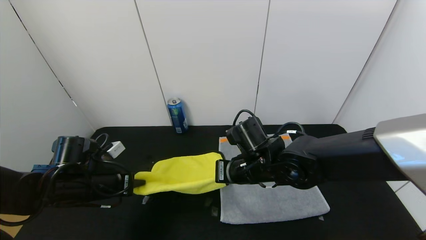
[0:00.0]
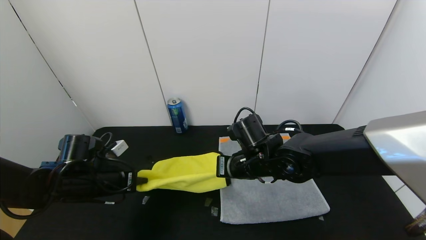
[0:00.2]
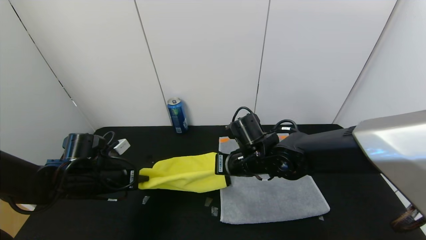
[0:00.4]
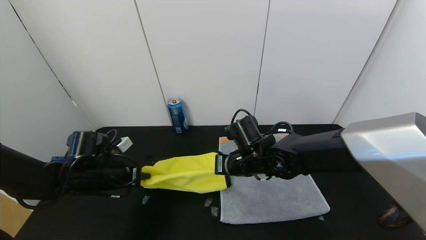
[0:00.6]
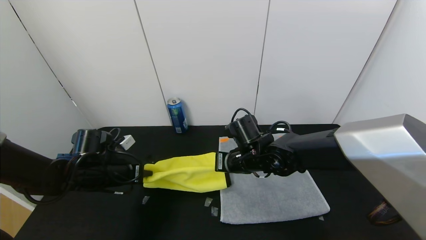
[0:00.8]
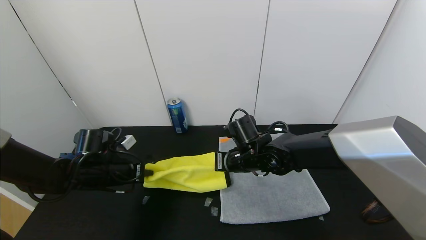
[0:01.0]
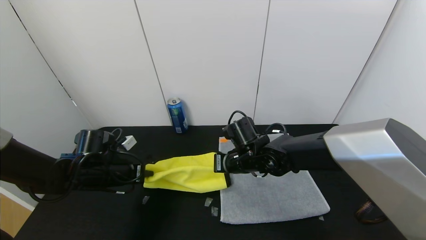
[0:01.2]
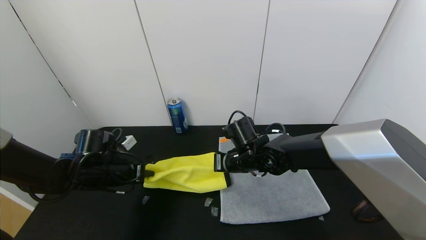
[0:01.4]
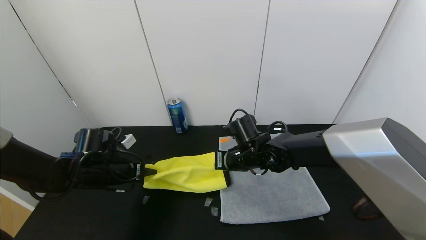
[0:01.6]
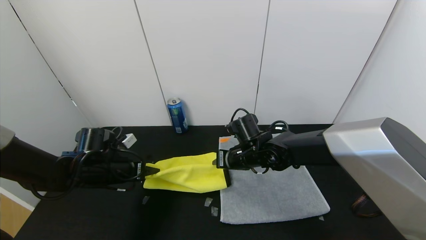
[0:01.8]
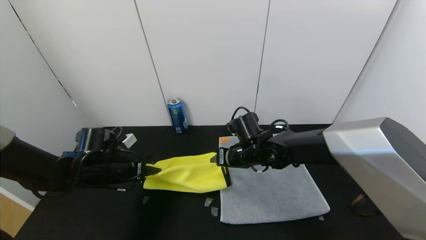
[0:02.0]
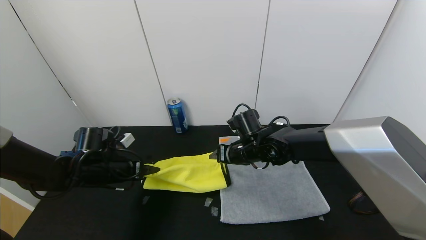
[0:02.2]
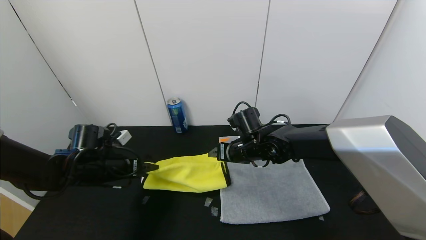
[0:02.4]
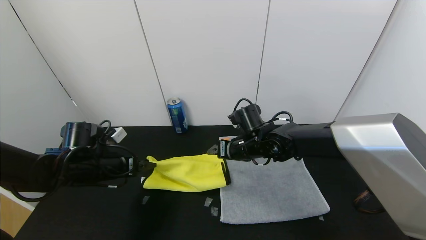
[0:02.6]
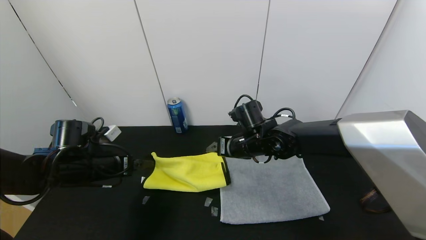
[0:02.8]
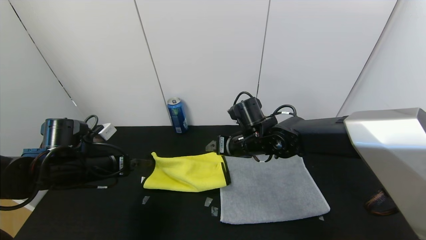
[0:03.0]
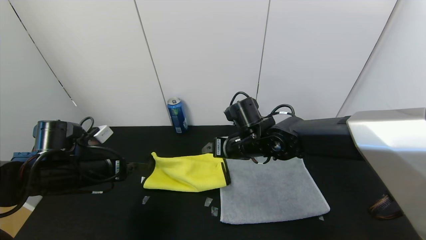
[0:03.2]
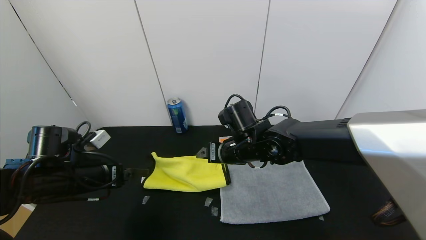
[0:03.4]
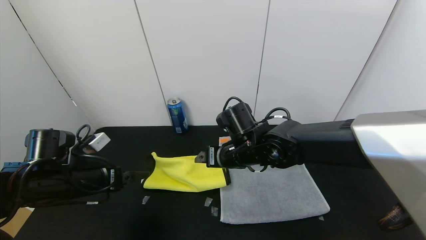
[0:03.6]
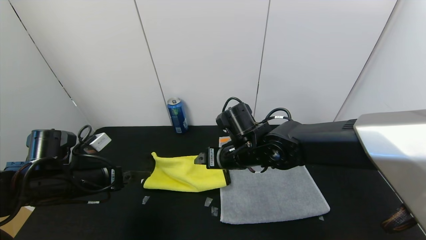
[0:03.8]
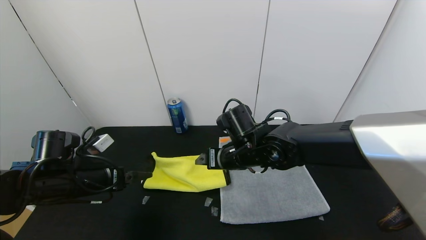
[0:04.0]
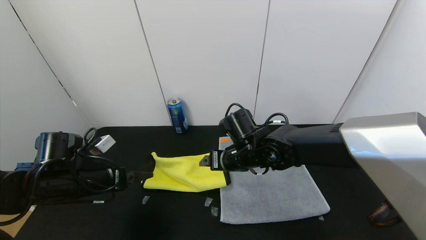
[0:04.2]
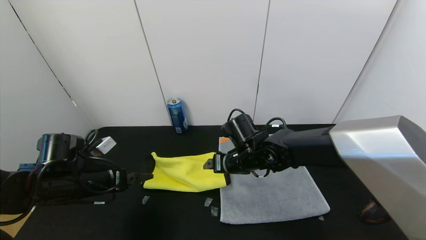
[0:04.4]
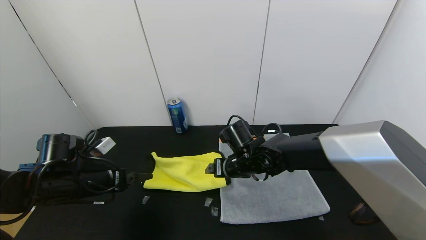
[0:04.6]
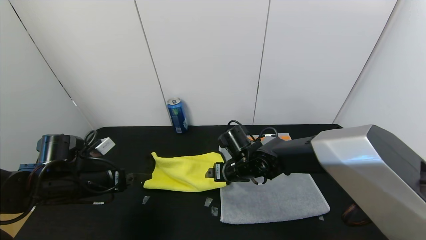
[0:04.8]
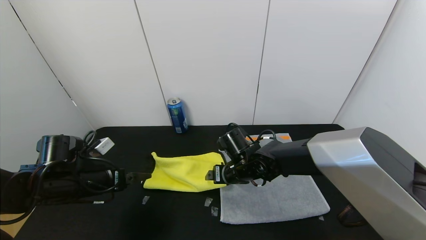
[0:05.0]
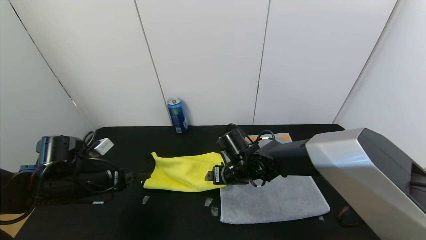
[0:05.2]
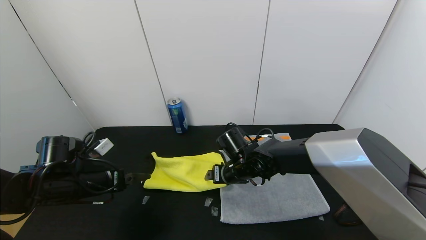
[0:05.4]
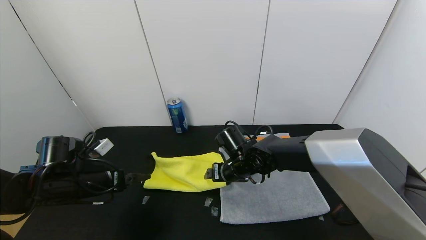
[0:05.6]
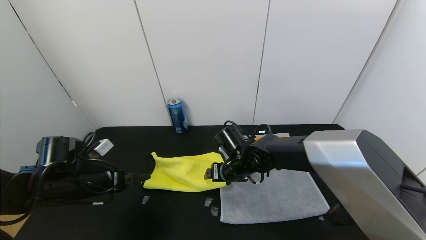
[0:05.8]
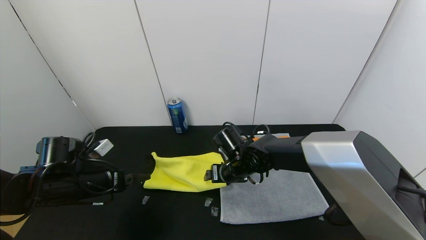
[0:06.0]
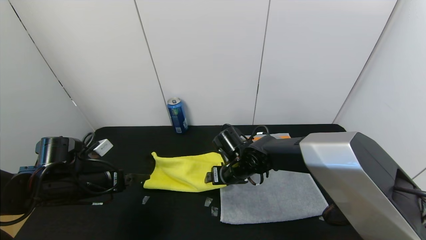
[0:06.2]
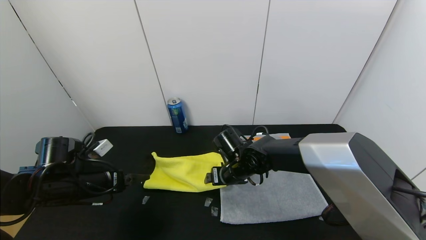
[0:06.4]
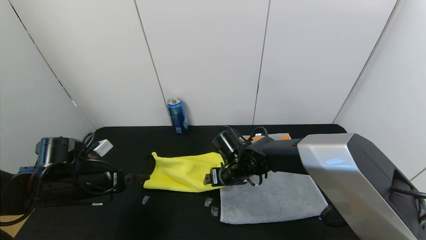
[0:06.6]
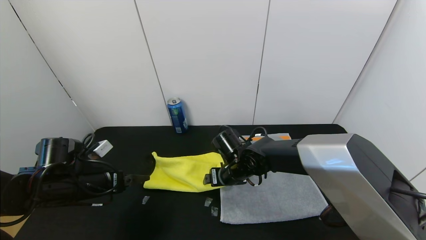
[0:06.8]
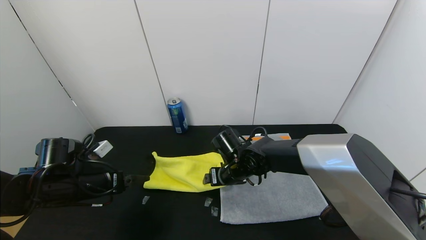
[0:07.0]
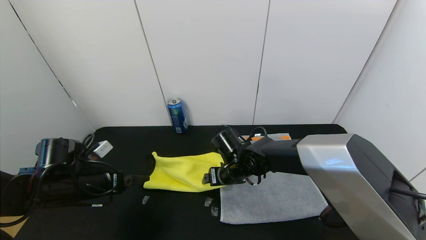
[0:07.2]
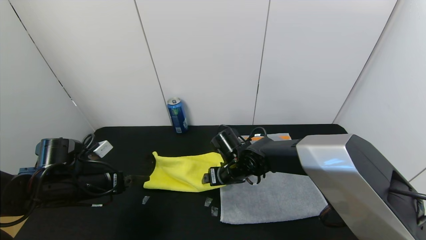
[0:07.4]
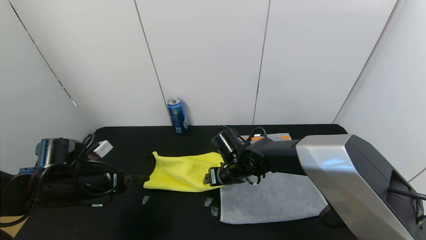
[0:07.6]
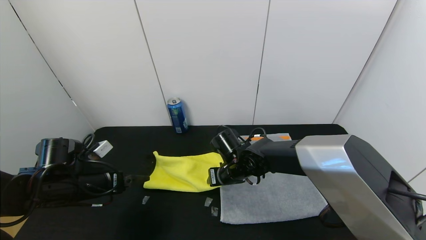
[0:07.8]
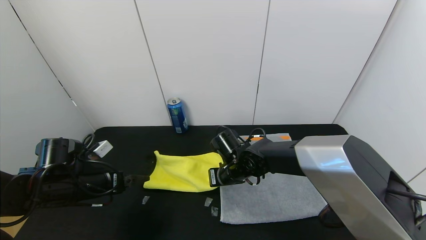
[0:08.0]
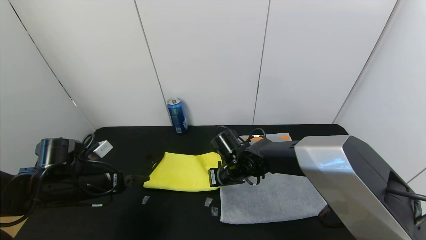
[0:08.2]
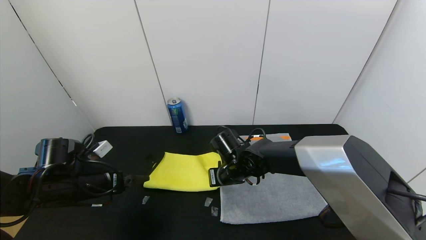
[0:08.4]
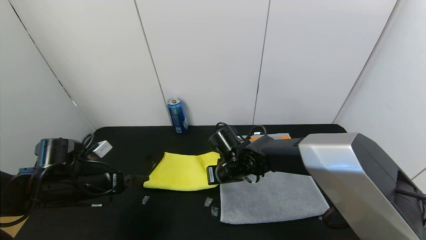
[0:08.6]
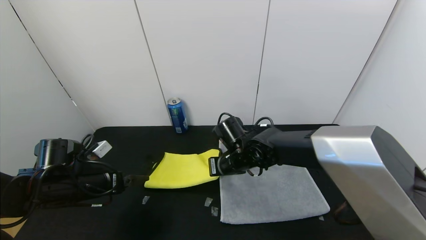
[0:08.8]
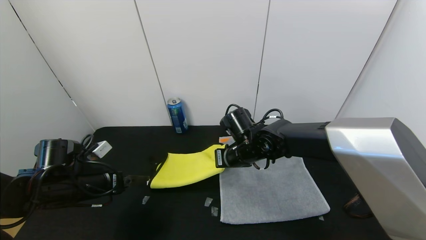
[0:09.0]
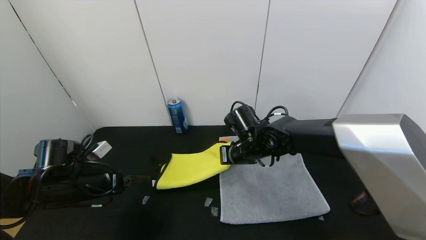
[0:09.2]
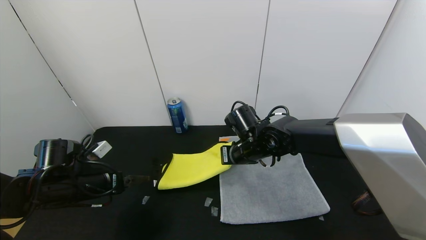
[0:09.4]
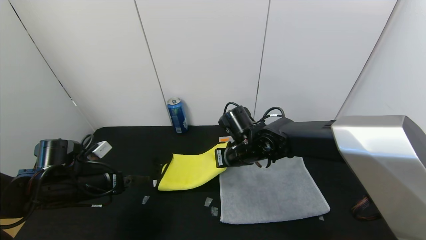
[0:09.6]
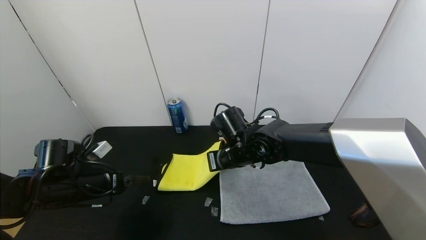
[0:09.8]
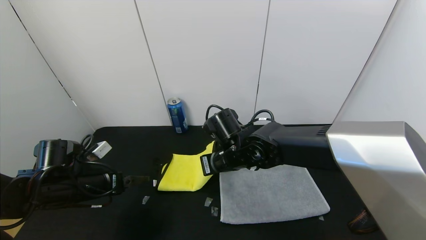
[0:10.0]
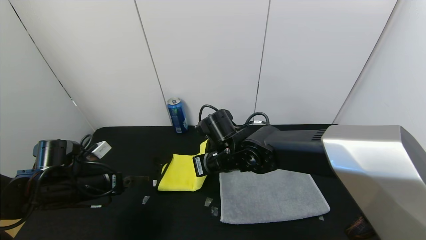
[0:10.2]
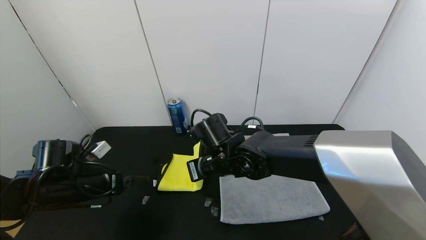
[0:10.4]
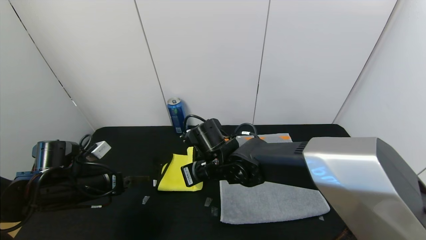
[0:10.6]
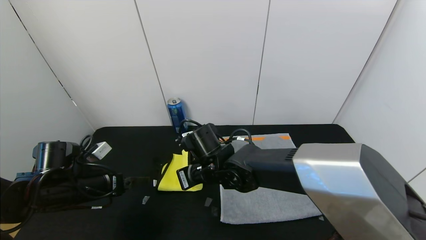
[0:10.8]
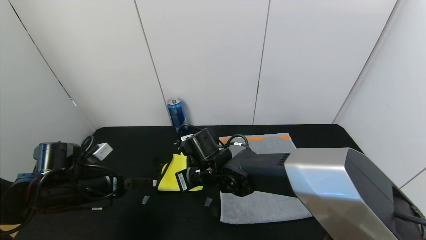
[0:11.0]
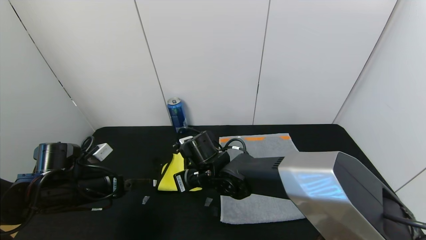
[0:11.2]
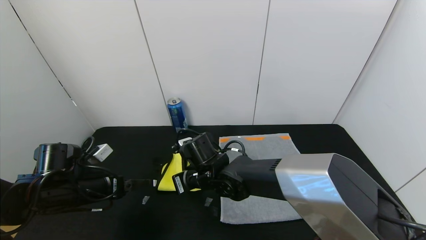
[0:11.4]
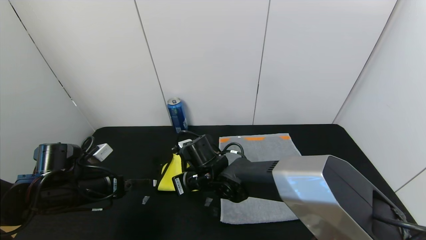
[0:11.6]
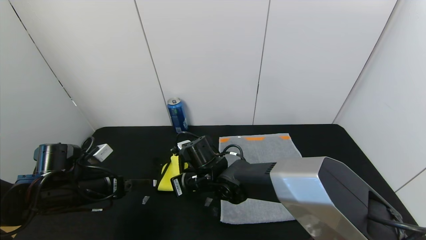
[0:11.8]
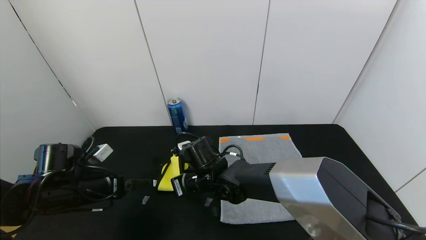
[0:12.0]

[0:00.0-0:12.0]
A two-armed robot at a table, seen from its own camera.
Task of the whole recording: Use the gripper to fold the yellow towel and grey towel in half twice,then put the yellow towel on the grey towel.
Step, 0:00.0 to 0:02.8: Fold the yellow towel upwards with the left gripper.
Step, 0:00.0 to 0:02.8: Fold the yellow towel upwards with the right gripper.
0:00.0 to 0:01.6: The left gripper opens up; the right gripper is displaced forward by approximately 5 cm.
0:01.6 to 0:03.0: The right gripper opens. The left gripper ends up approximately 5 cm from where it was, and opens up.
0:03.0 to 0:04.4: The grippers move only a little.
0:04.4 to 0:06.0: The grippers stay close to where they were, moving slightly.
0:06.0 to 0:07.6: The two grippers keep their place.
0:07.6 to 0:09.0: The right gripper goes roughly 5 cm upward, and closes.
0:09.0 to 0:10.4: The right gripper heads to the left, covering some 5 cm.
0:10.4 to 0:12.0: The right gripper heads downward, covering some 5 cm.

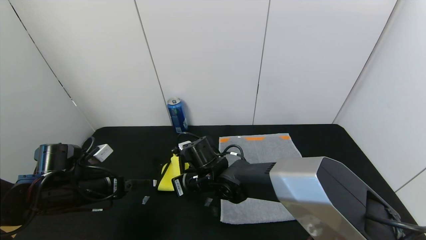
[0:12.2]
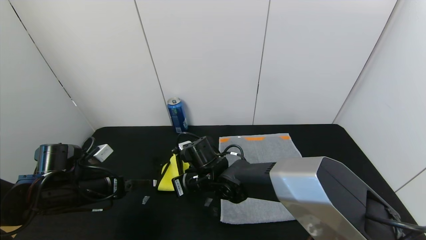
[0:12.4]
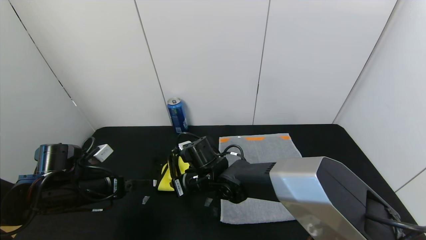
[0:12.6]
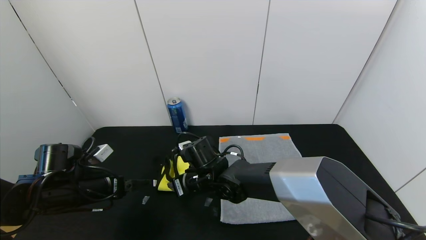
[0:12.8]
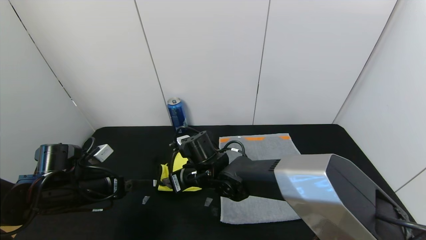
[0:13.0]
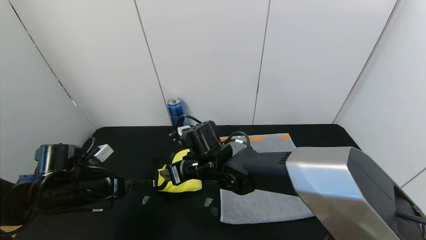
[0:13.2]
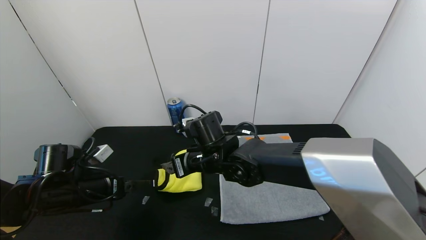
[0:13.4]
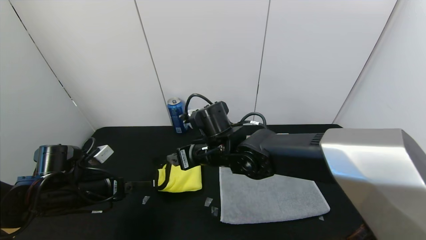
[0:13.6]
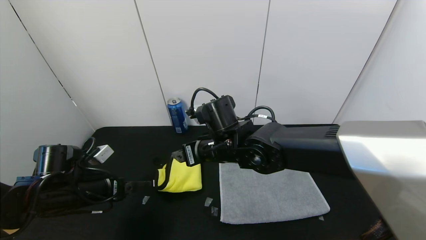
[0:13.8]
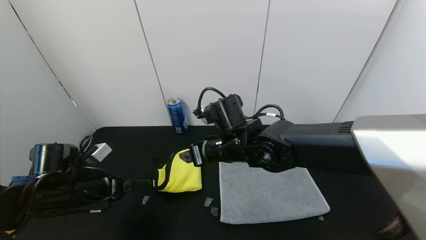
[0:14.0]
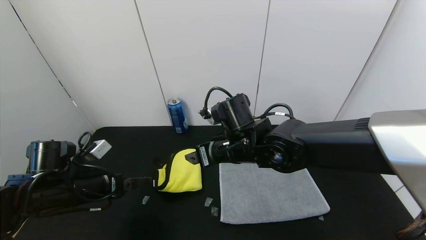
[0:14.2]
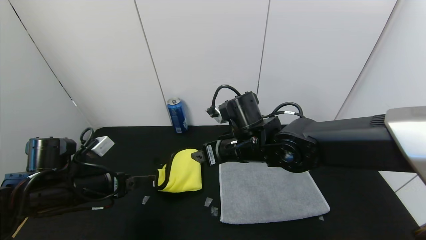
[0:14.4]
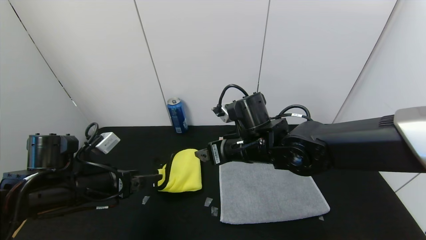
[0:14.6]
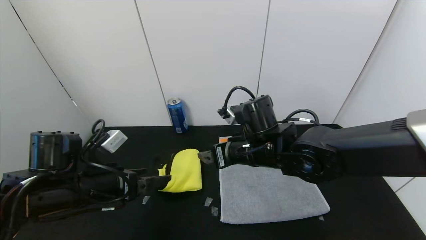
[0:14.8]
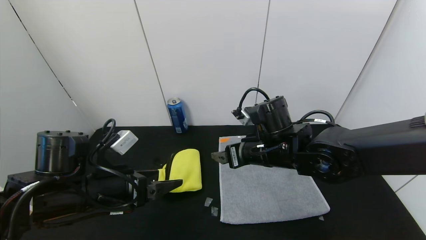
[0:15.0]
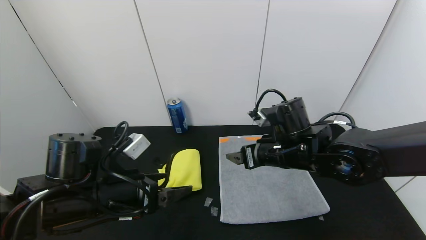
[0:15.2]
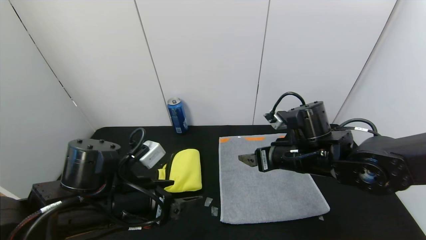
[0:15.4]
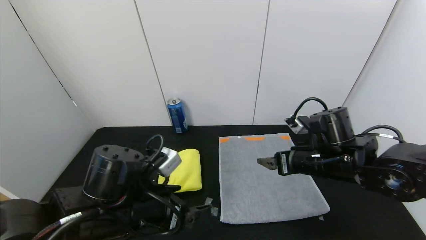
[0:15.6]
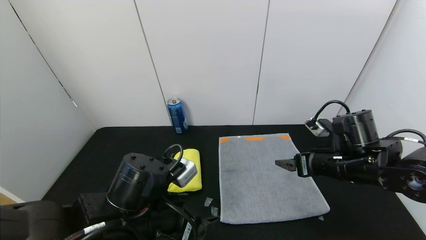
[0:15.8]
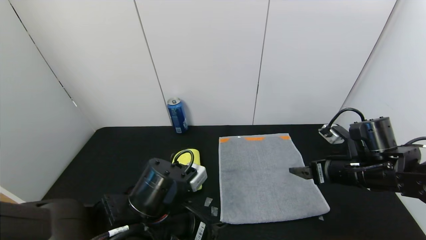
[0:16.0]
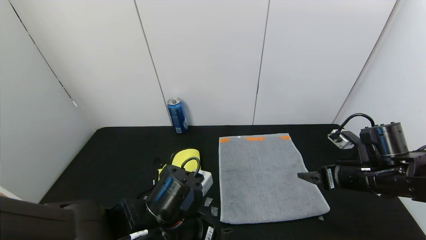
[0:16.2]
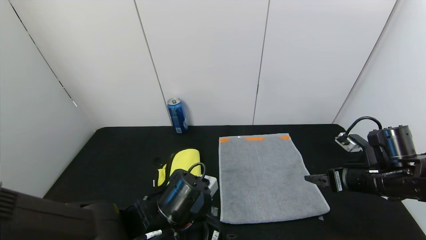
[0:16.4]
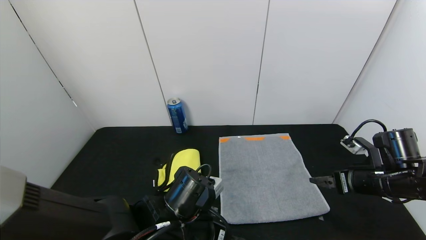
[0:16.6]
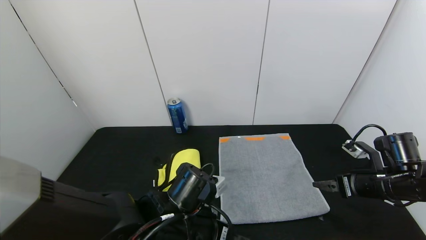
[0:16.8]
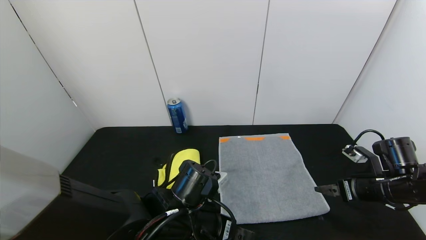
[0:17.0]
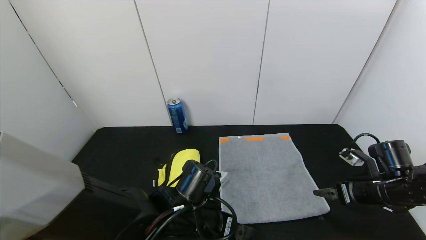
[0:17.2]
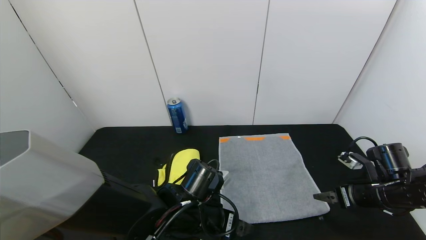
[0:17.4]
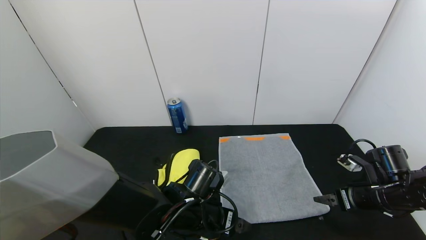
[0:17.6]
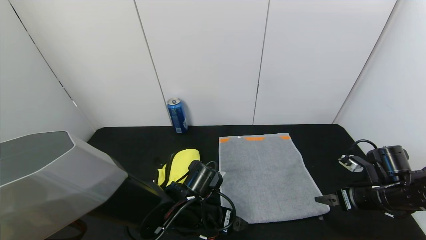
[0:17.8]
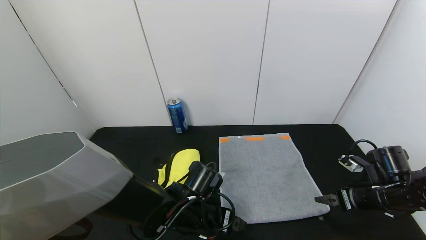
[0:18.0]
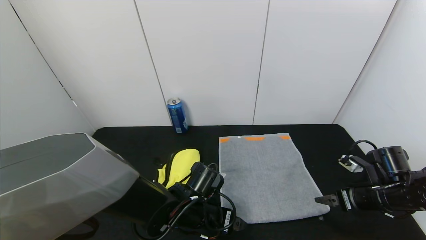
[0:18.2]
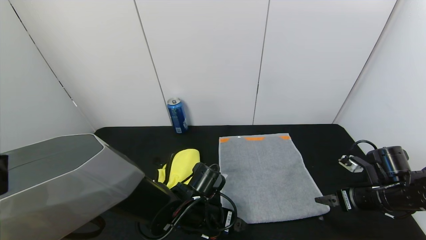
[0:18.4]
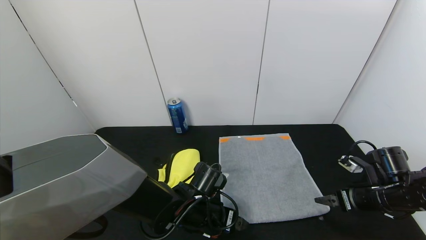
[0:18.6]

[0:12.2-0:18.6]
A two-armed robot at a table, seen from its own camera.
Task of the whole recording: Use the gripper to fold the yellow towel and grey towel in half twice,then put the yellow towel on the grey towel.
0:12.2 to 0:13.8: The right gripper goes approximately 10 cm upward, and opens its fingers.
0:13.8 to 0:15.4: The left gripper shifts some 15 cm to the right, backward and upward. The right gripper goes some 15 cm to the right.
0:15.4 to 0:17.0: The left gripper moves to the right and downward, some 10 cm. The right gripper shifts approximately 20 cm to the right.
0:17.0 to 0:18.6: The left gripper is displaced downward and forward by some 10 cm.
